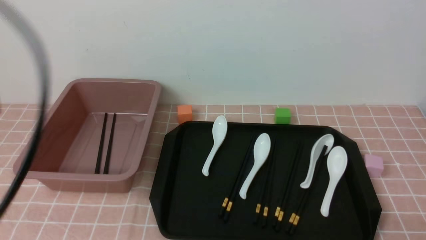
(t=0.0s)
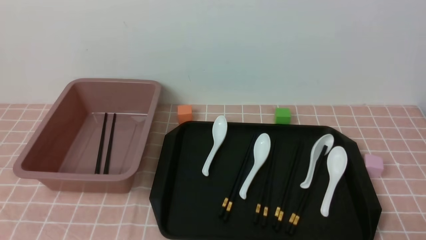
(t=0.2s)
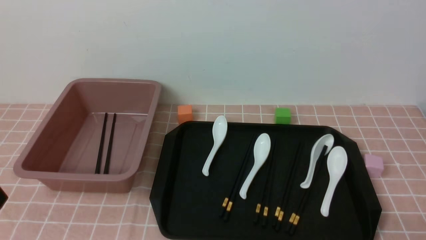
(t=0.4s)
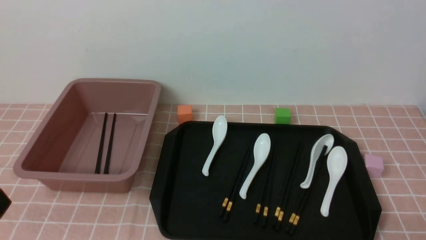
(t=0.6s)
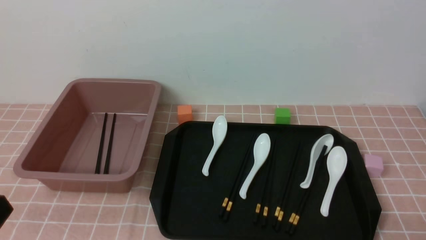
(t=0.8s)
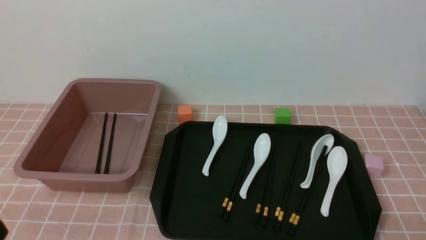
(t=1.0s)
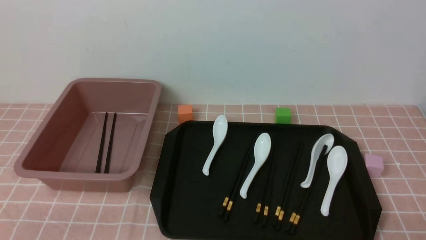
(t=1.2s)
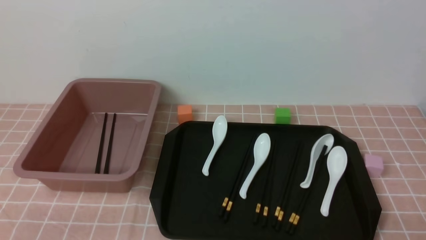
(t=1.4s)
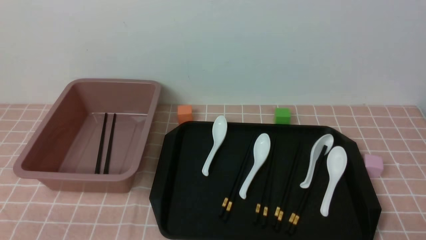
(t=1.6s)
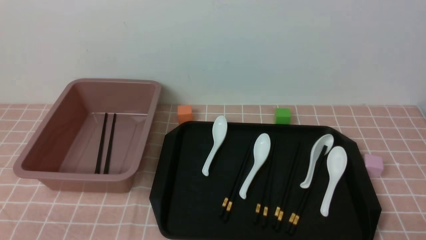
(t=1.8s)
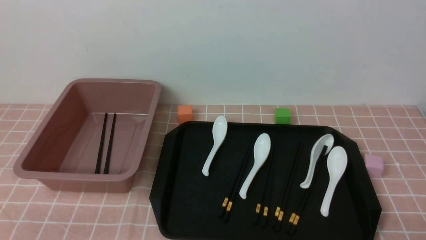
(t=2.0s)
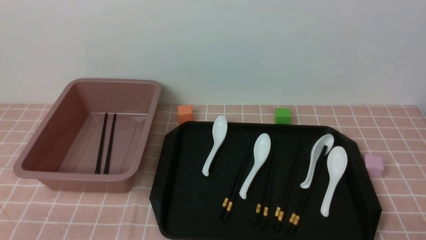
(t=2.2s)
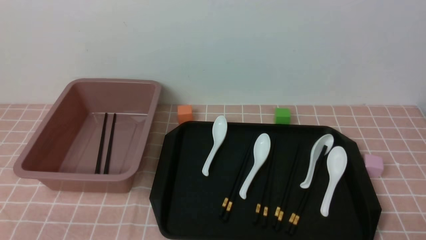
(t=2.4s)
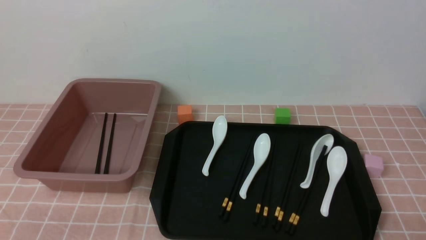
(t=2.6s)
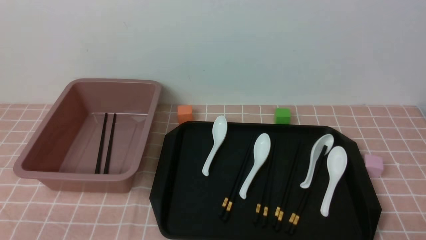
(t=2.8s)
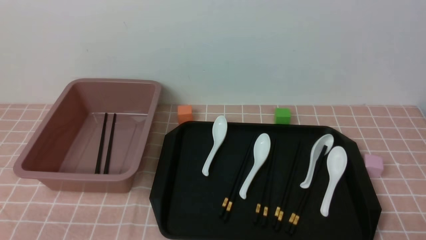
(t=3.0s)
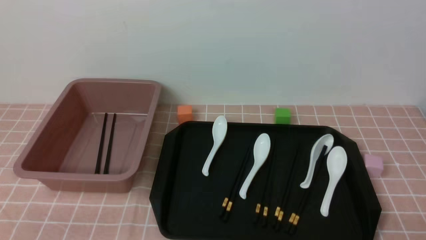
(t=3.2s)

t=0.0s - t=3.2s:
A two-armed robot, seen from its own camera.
t=0.0s - t=1.6s: The left gripper moves downward, about 20 cm.
t=1.6s - t=3.2s: Both grippers stay about where they are.
